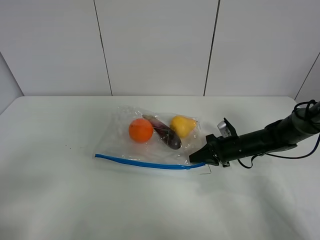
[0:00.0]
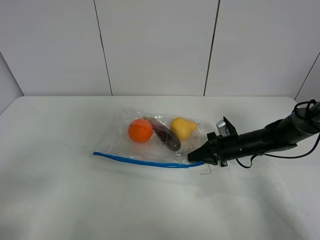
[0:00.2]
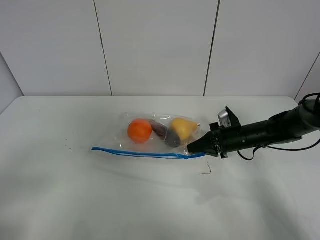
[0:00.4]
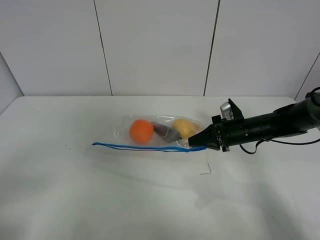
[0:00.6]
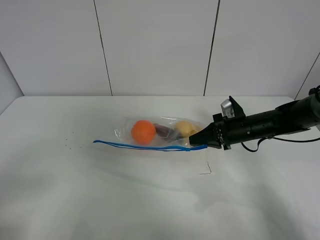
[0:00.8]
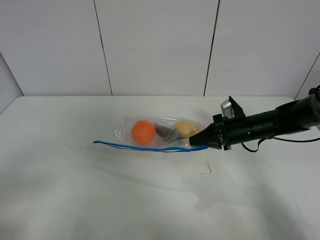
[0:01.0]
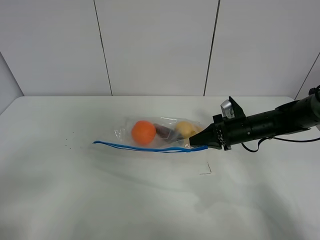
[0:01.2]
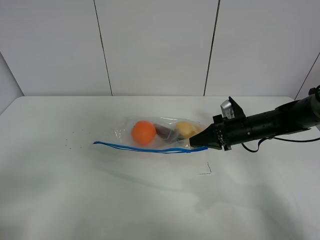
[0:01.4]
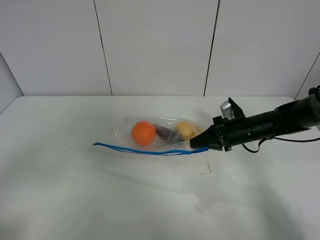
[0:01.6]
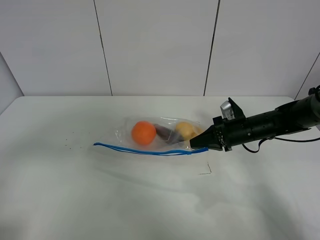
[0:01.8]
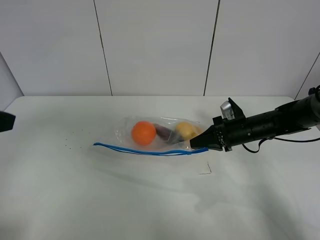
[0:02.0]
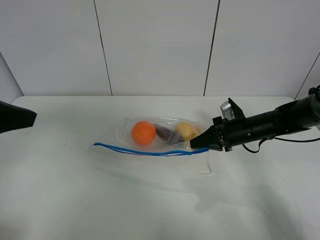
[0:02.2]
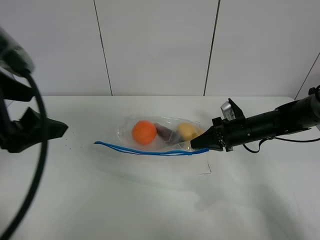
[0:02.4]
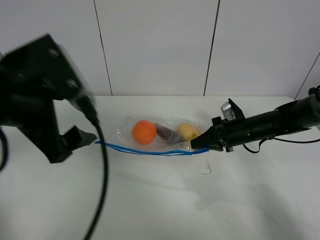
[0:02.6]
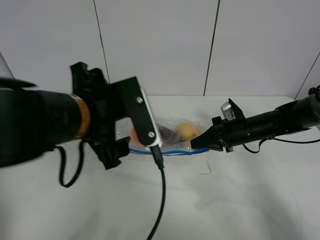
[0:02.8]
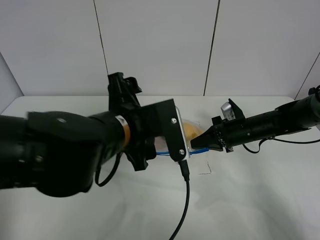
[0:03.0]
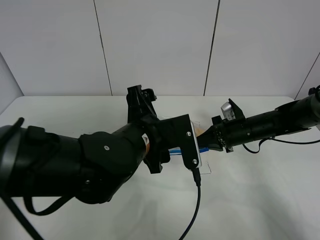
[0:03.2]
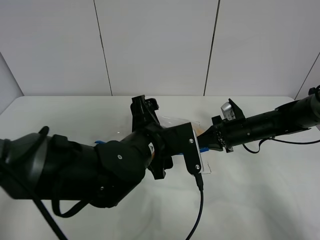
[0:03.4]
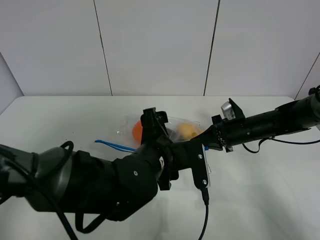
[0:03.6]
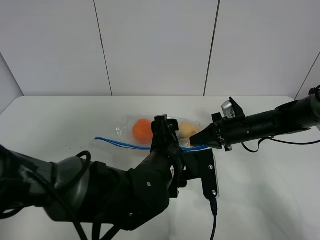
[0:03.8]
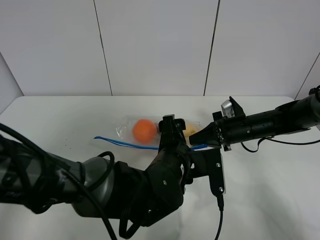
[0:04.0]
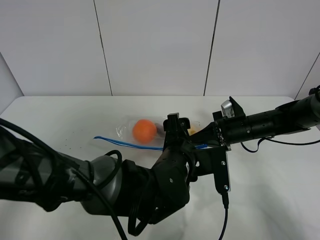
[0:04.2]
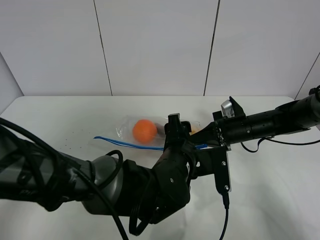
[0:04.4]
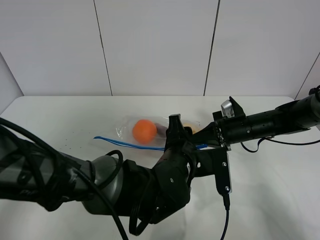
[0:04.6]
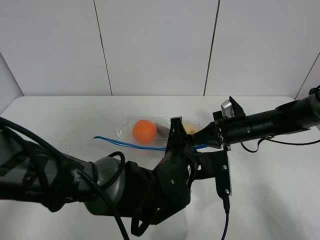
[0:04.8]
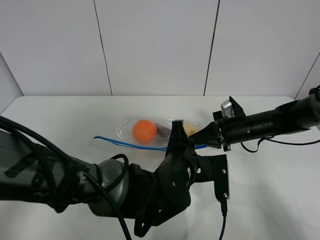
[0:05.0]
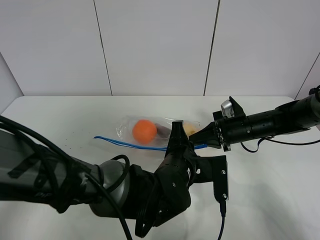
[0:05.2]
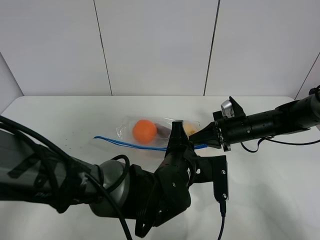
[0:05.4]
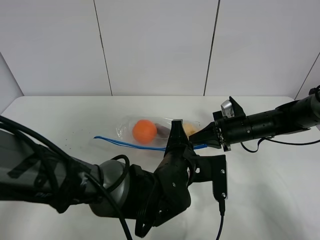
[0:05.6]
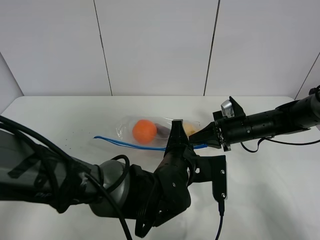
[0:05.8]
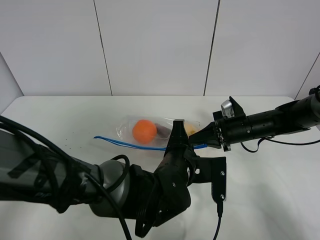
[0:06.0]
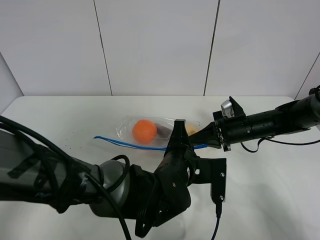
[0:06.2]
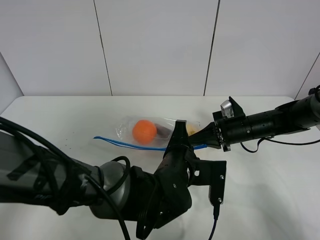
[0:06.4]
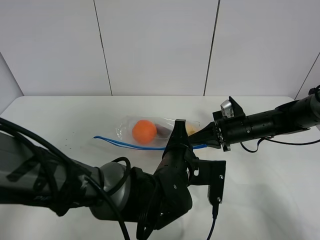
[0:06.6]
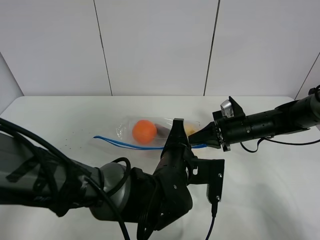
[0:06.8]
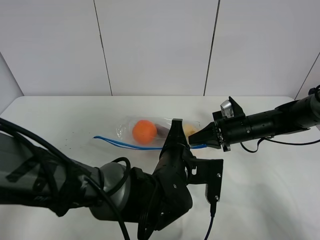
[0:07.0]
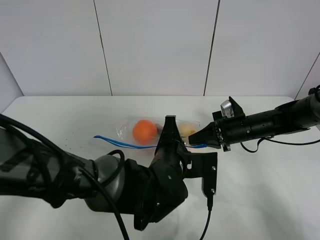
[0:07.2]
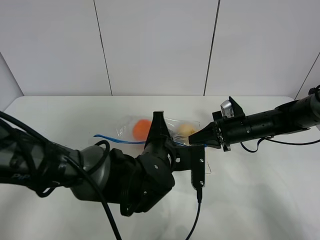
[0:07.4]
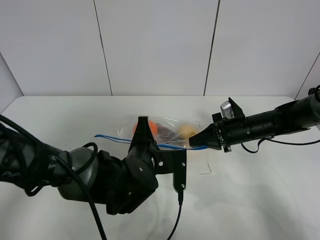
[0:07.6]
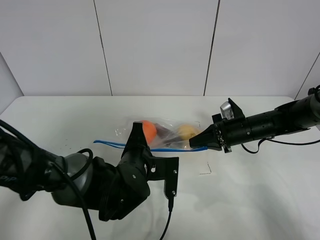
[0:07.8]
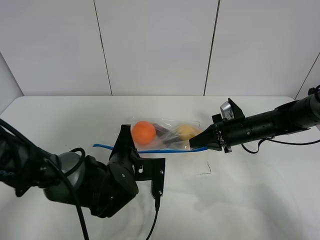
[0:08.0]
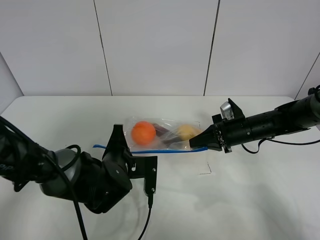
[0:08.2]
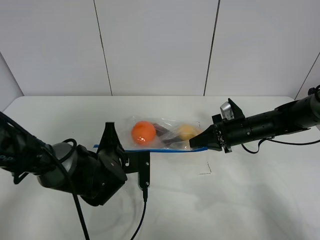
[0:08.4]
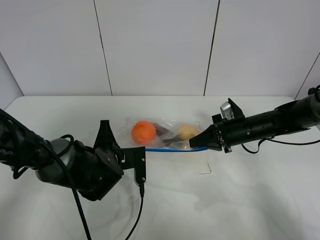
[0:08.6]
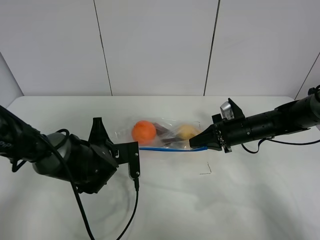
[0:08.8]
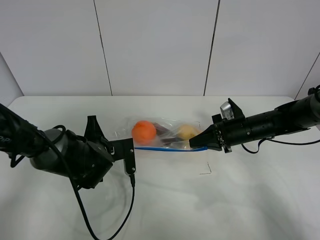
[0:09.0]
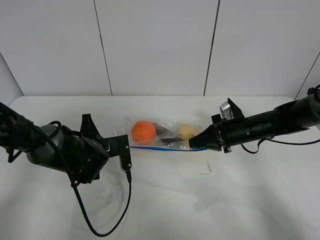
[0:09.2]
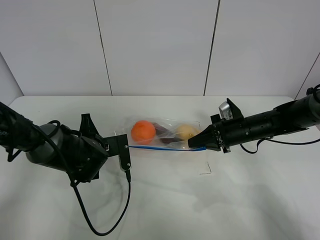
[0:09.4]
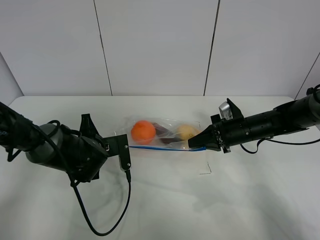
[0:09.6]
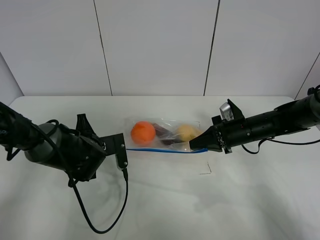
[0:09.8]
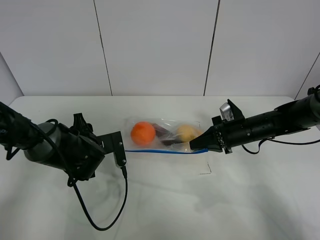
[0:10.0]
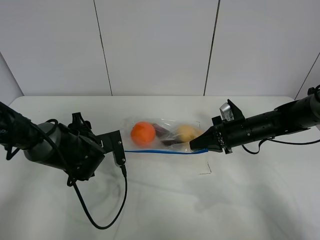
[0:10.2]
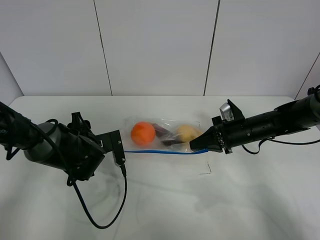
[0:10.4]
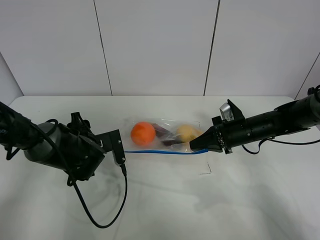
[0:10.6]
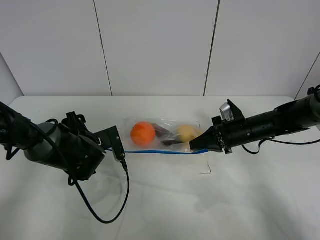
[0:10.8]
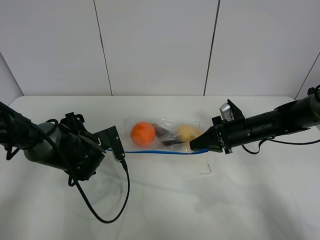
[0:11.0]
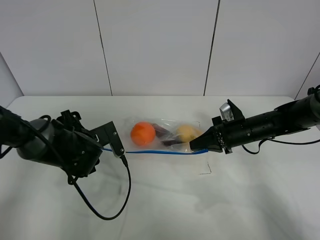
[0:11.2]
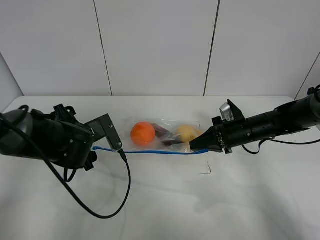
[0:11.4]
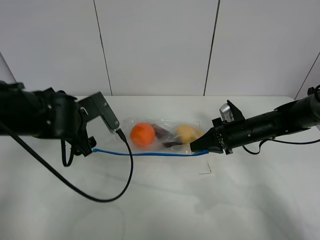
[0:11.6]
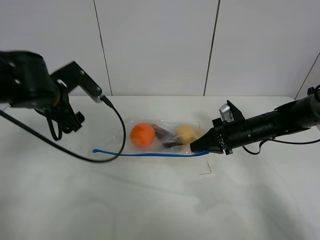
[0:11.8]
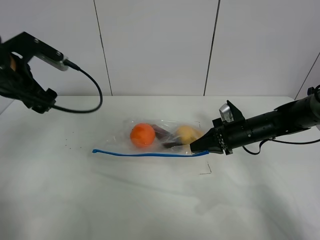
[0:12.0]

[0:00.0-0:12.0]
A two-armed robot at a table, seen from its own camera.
Step, 0:00.0 to 0:01.4: Lift the fruit bag with your right gripper.
Step, 0:01.6 to 0:10.2: Pull the fruit bag with left gripper.
0:00.0 to 0:01.6: The left gripper shifts by some 5 cm, while the right gripper moves upward, some 5 cm.
0:01.6 to 0:03.0: The left gripper is displaced to the right and forward by approximately 30 cm.
0:03.0 to 0:04.4: The left gripper goes about 10 cm downward and to the right.
0:04.4 to 0:06.0: The left gripper closes its fingers.
0:06.0 to 0:07.6: The left gripper moves to the left, some 5 cm.
0:07.6 to 0:09.0: The left gripper heads to the left and forward, covering roughly 10 cm.
0:09.0 to 0:10.4: The left gripper opens its fingers.
0:10.4 to 0:12.0: The left gripper travels upward and to the left by about 25 cm.

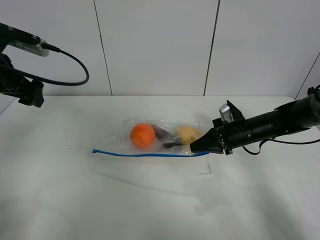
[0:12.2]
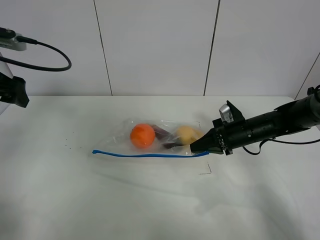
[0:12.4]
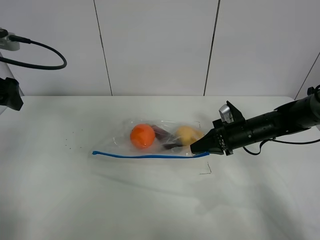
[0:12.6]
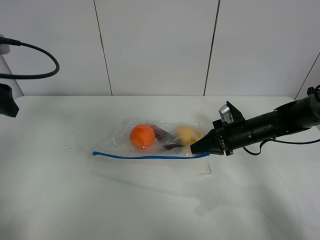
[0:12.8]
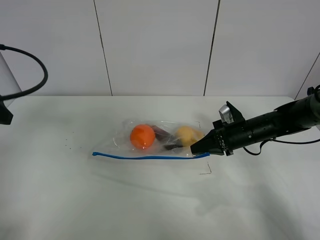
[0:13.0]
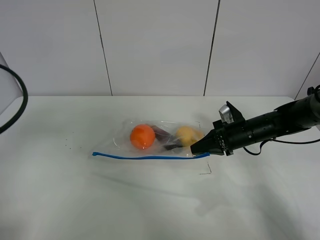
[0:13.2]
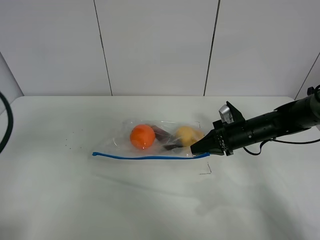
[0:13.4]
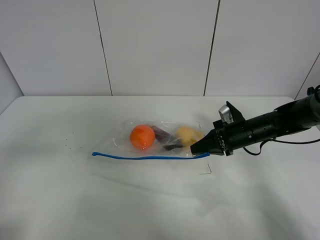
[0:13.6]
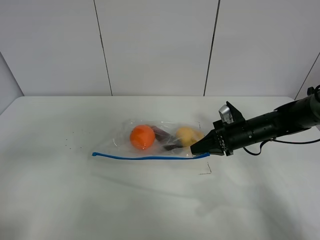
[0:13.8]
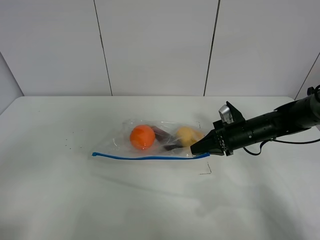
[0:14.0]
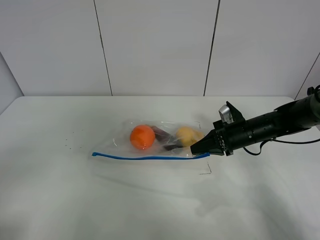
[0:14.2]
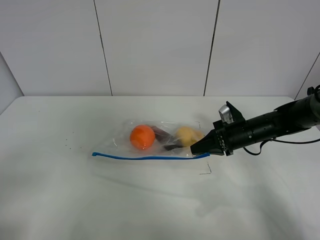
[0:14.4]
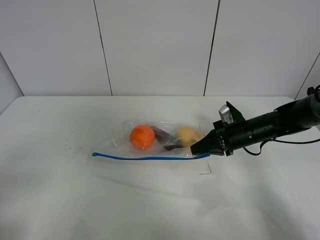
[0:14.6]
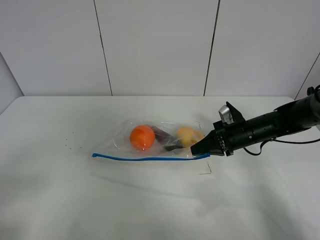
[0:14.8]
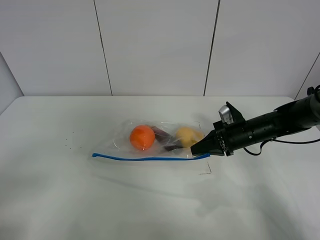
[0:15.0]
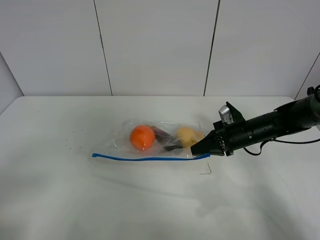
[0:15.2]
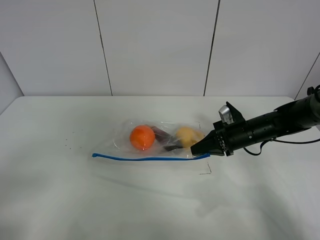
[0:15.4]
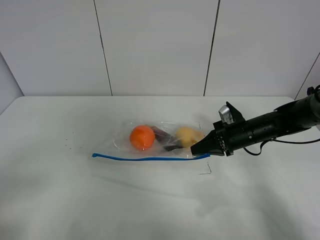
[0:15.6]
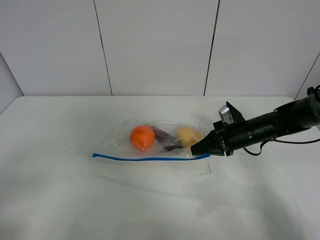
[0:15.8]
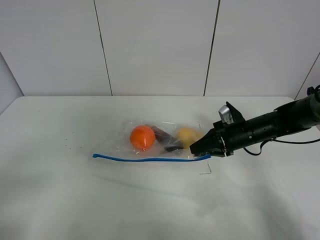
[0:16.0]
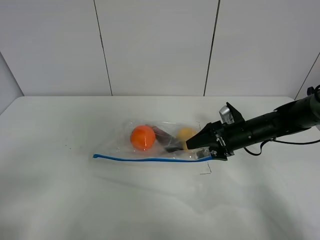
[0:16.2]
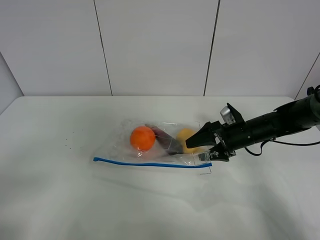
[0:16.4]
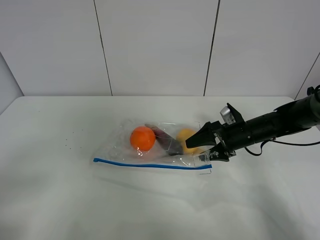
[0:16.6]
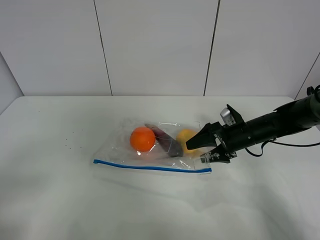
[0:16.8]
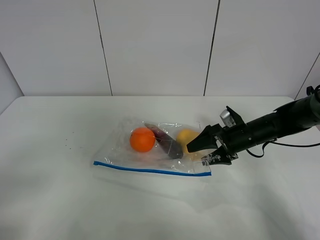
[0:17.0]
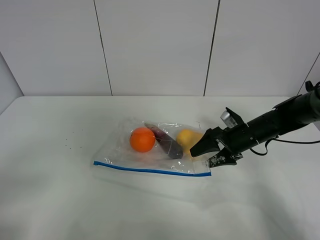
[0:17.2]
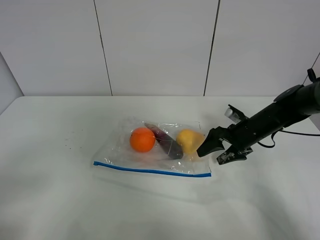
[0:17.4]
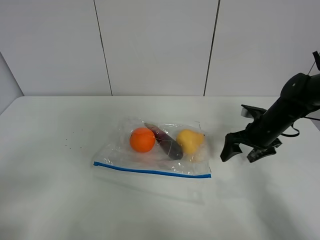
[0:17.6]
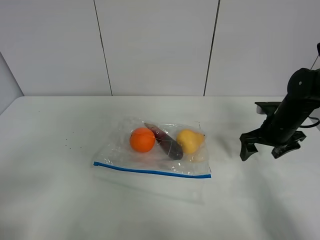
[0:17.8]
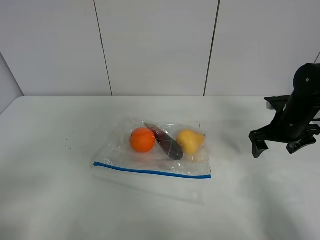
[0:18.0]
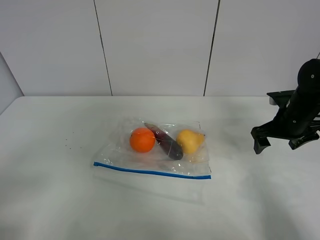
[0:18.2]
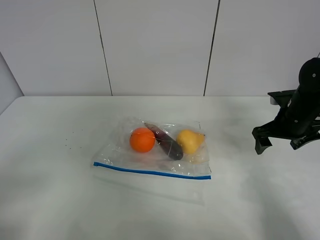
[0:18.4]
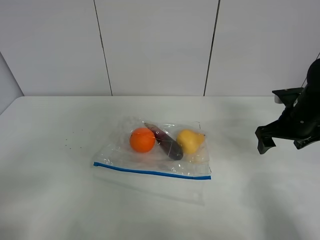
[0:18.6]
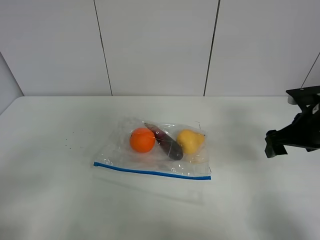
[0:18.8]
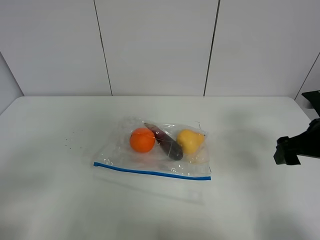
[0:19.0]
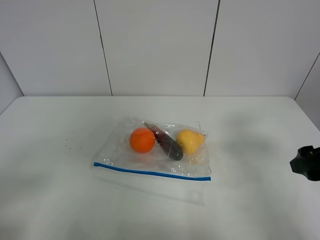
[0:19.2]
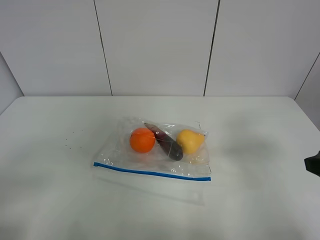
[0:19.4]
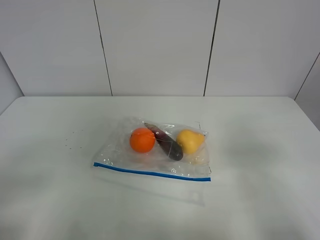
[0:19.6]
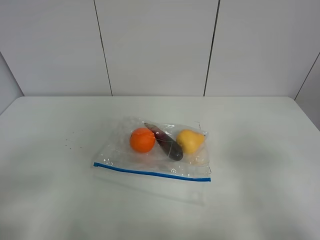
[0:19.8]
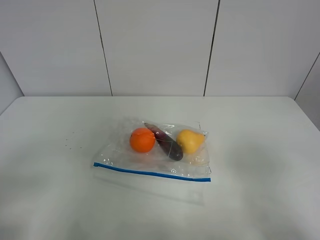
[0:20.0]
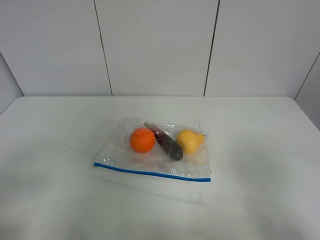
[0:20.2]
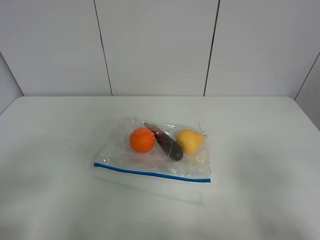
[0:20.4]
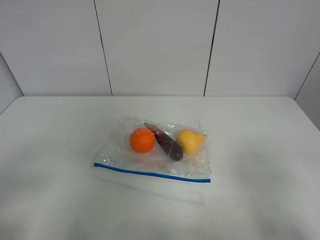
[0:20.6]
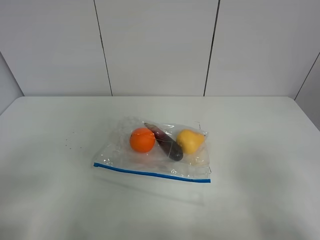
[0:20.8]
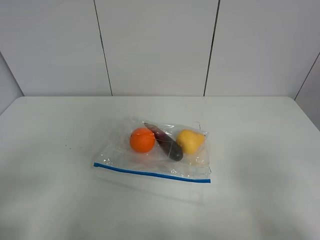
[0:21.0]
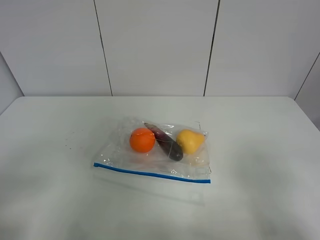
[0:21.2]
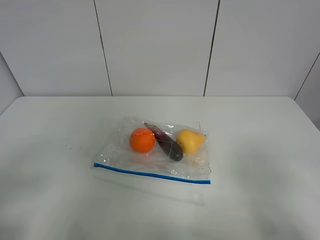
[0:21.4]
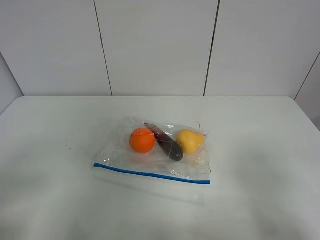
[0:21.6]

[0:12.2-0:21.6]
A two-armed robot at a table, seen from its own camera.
Step, 0:12.2 to 0:17.6: Place the fruit bag with right gripper.
0:12.2 to 0:13.8: The left gripper heads backward, covering some 25 cm.
0:13.8 to 0:15.4: The left gripper ends up some 5 cm from where it was.
0:15.4 to 0:17.0: The right gripper opens up.
0:17.0 to 0:18.4: The right gripper is displaced to the right and upward by about 10 cm.
0:18.4 to 0:20.0: The right gripper is displaced backward by roughly 30 cm.

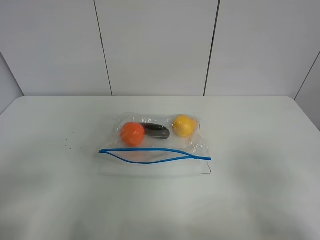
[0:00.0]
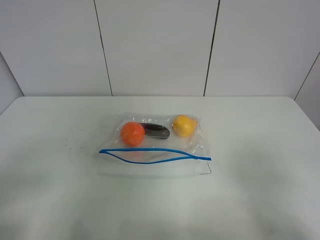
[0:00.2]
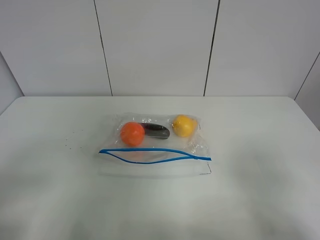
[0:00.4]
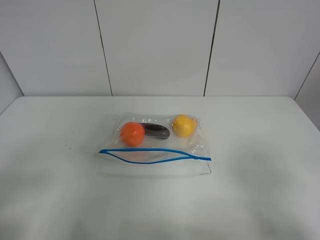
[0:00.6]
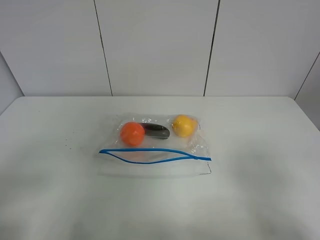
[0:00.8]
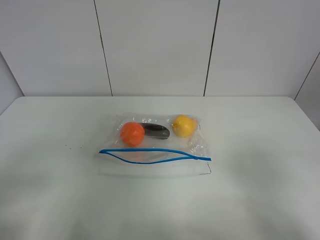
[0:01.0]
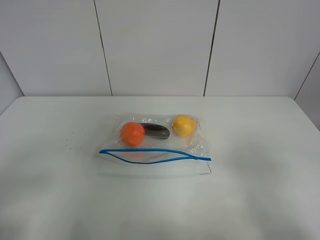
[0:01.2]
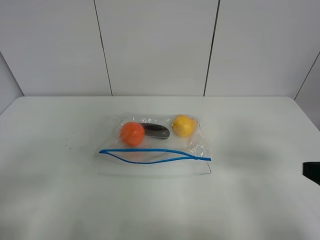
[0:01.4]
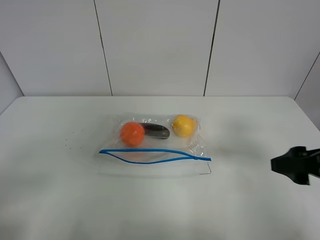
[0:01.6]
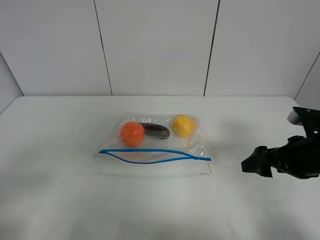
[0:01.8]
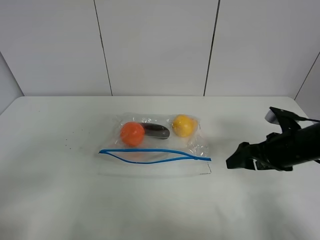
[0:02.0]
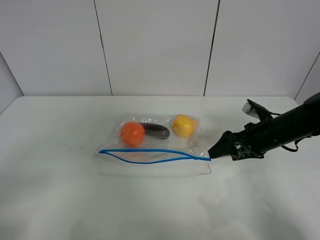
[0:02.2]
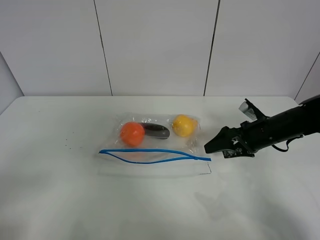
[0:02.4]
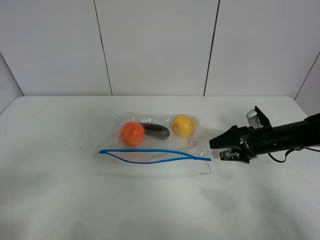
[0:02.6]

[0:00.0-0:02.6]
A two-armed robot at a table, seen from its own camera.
0:01.2 to 0:02.6: The right gripper goes roughly 35 cm forward and downward.
